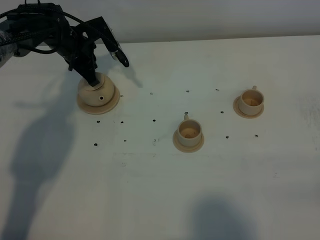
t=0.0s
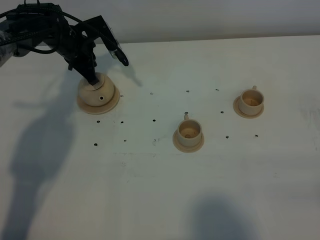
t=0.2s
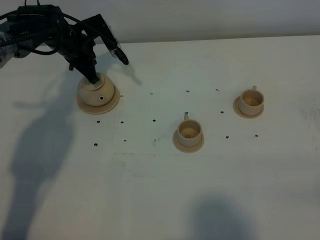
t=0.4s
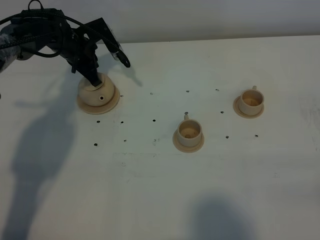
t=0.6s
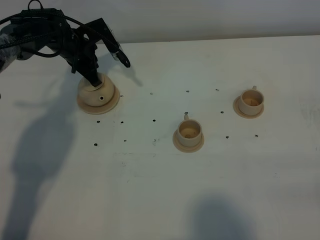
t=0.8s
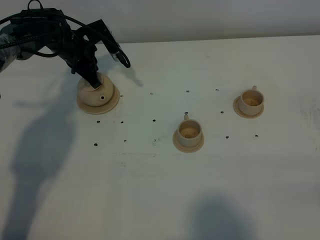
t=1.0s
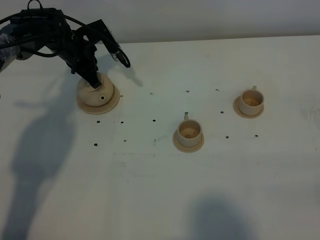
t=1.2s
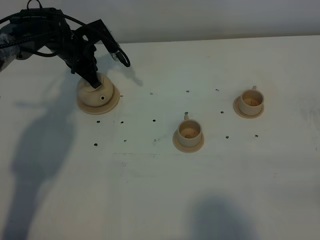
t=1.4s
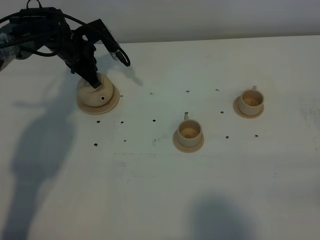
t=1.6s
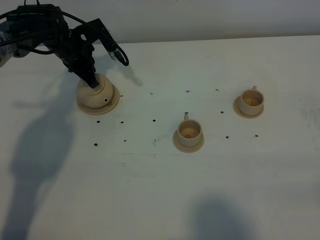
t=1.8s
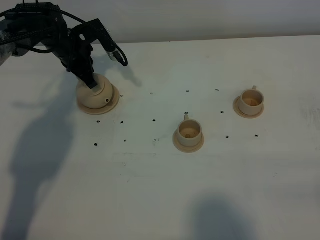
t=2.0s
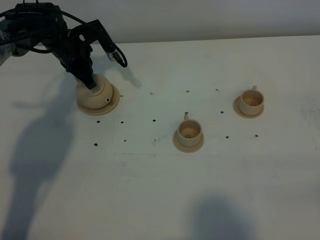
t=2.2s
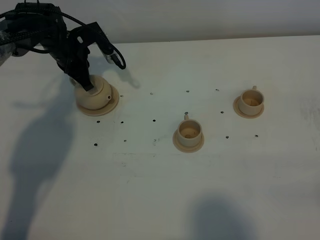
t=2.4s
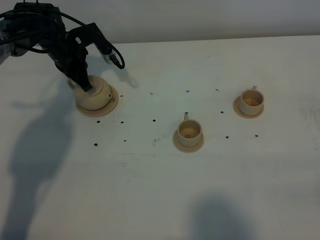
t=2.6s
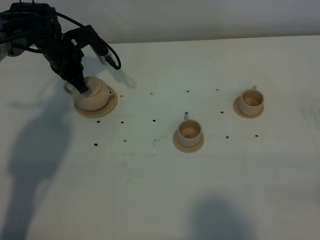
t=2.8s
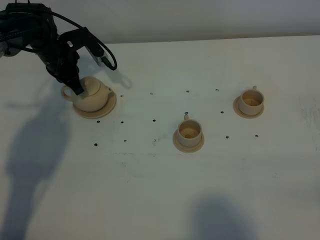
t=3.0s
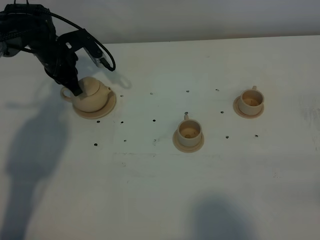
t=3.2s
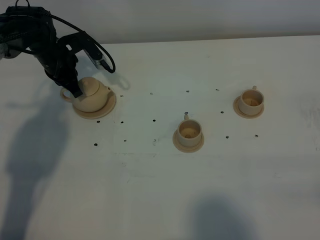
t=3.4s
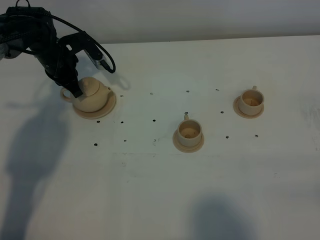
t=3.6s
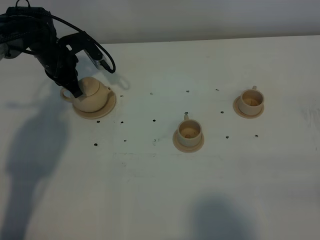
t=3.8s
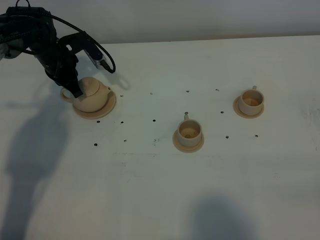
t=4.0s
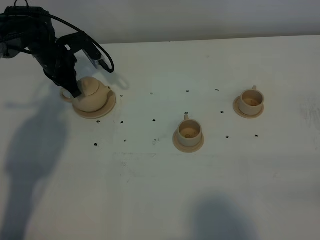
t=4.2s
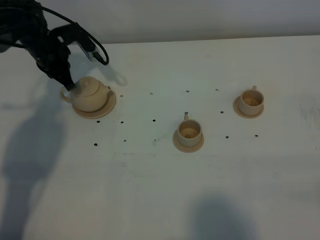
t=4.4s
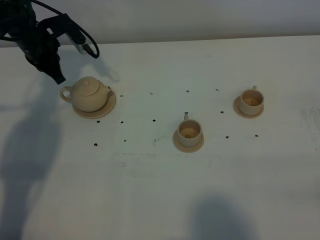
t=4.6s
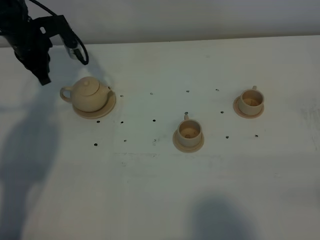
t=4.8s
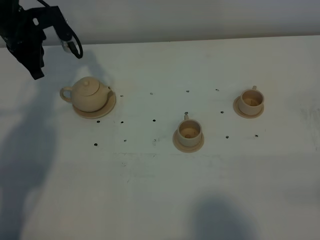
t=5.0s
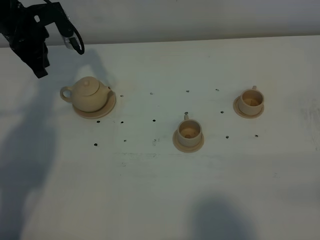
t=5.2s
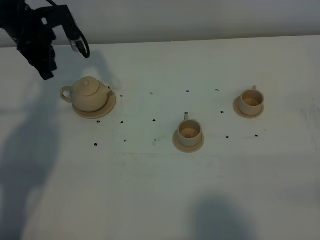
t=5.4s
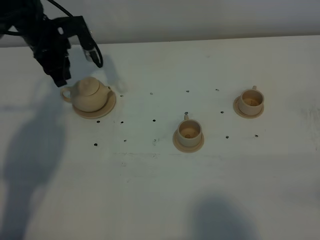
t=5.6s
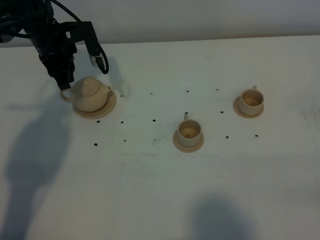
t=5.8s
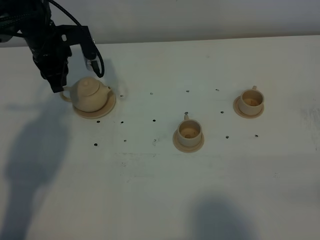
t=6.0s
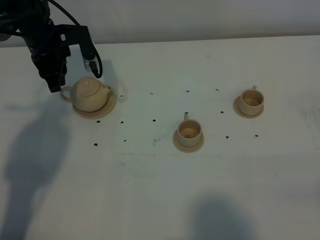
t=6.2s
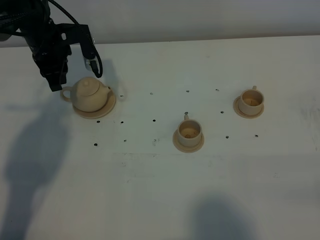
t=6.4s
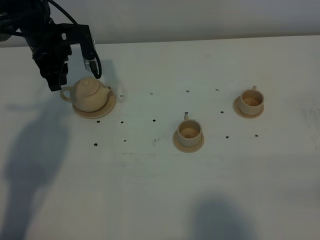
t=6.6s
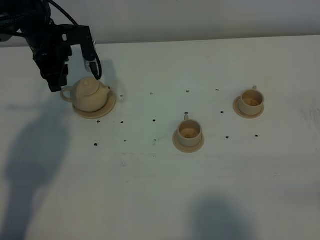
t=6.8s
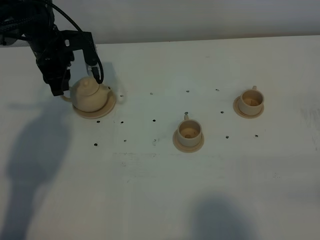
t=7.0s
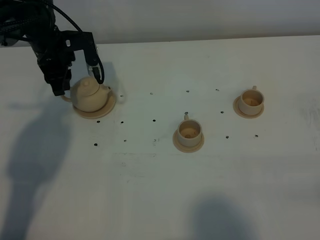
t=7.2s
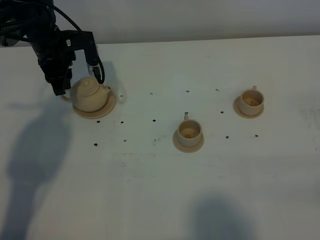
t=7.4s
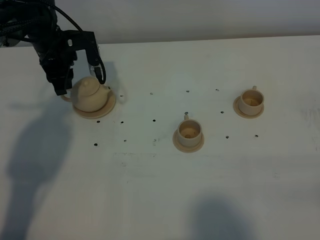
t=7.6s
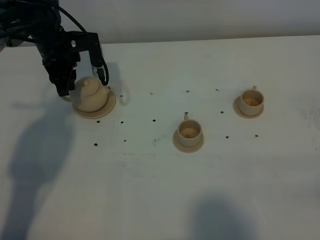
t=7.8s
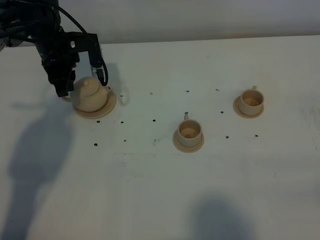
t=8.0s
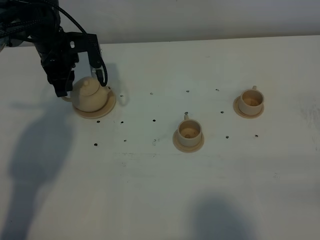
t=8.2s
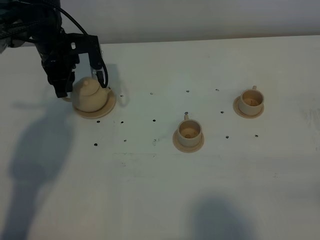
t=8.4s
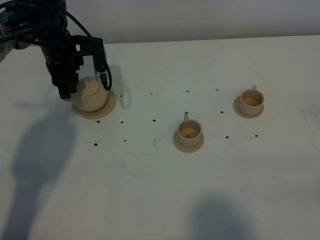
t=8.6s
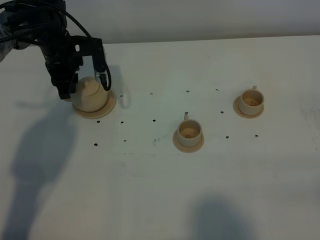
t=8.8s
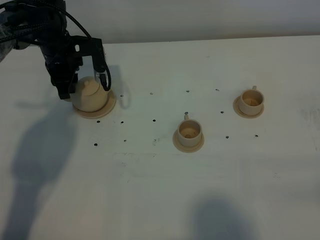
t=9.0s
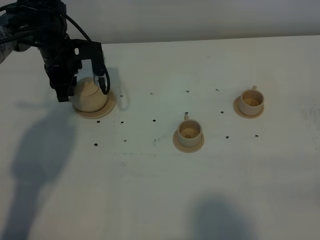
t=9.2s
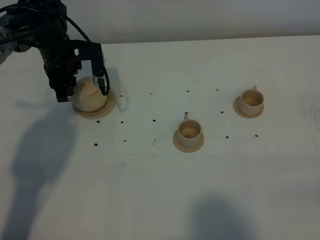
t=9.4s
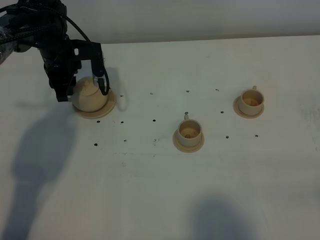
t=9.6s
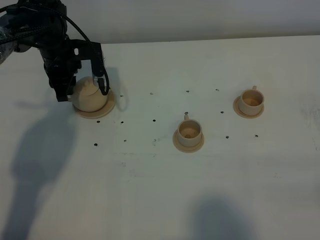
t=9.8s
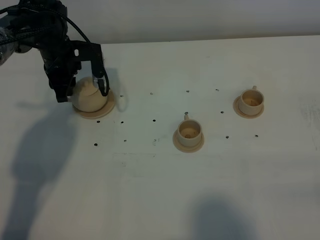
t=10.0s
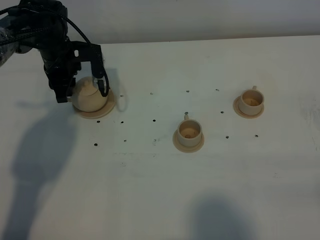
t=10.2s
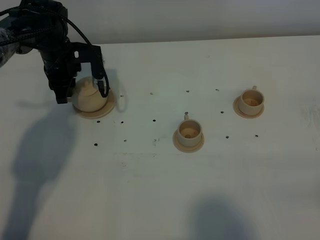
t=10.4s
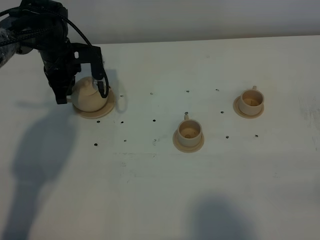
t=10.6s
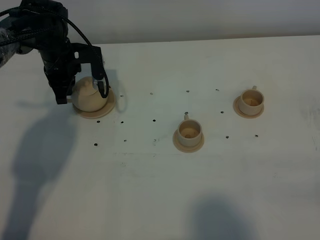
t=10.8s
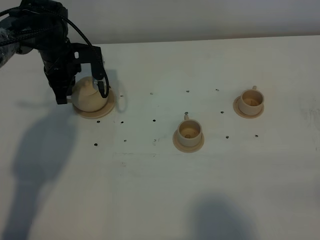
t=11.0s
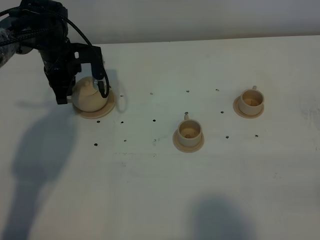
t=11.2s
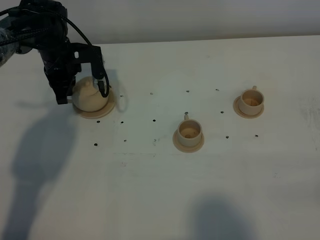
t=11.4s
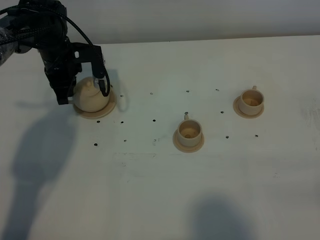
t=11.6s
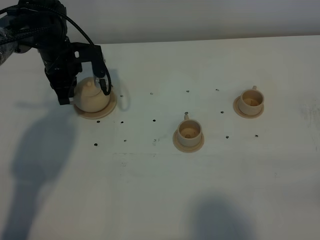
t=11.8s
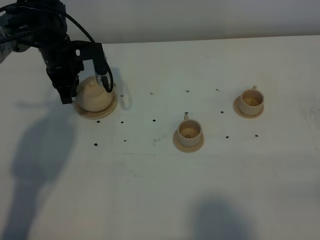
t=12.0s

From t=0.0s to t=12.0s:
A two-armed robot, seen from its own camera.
Task of the whole recording: grasp the brown teapot and pour the tea into the two brown teacups one by one, put the brown teapot back in its original place.
From t=0.0s to t=1.6s: The two grippers keep their place.
From t=1.6s to t=4.4s: The grippers stay close to where they were, moving slightly.
From t=4.4s to t=6.0s: The left gripper opens up.
From t=6.0s to t=7.6s: The grippers make only small movements.
From t=7.6s to t=9.0s: Both grippers stay put.
From t=9.0s to t=12.0s: The grippers make only small movements.

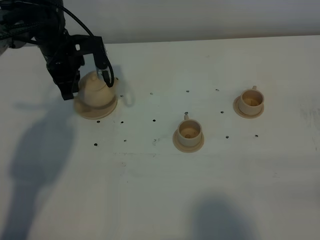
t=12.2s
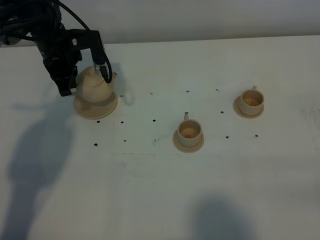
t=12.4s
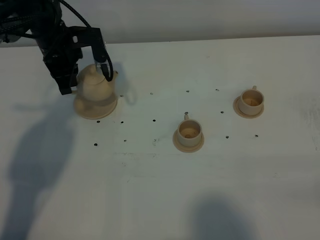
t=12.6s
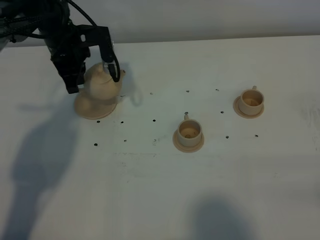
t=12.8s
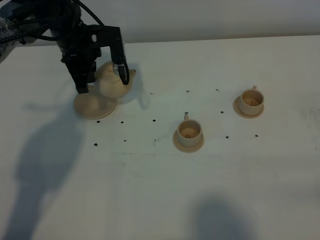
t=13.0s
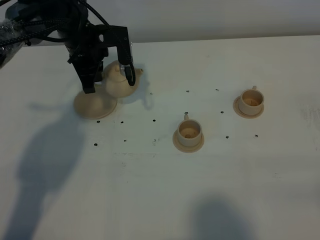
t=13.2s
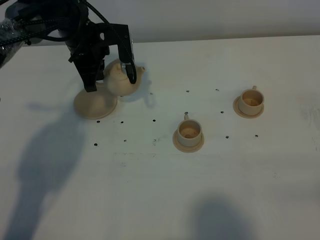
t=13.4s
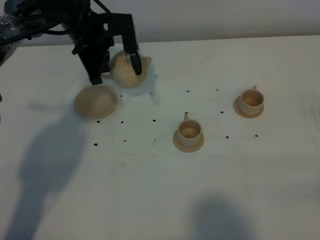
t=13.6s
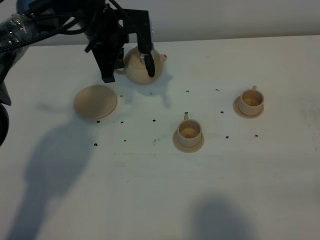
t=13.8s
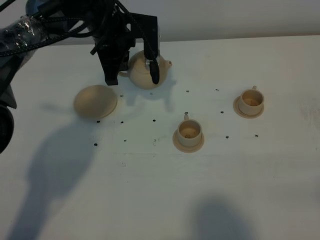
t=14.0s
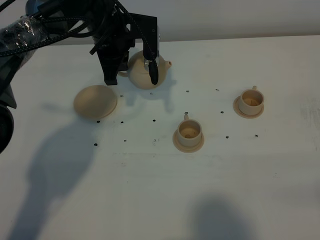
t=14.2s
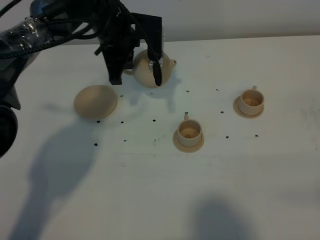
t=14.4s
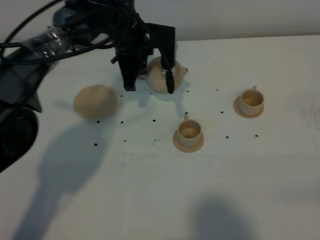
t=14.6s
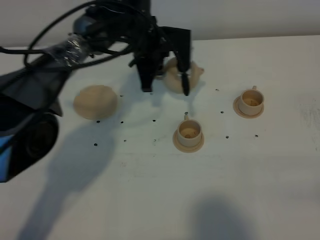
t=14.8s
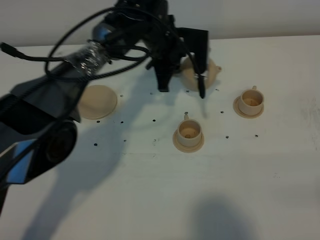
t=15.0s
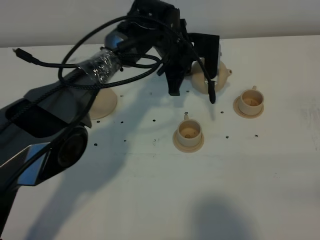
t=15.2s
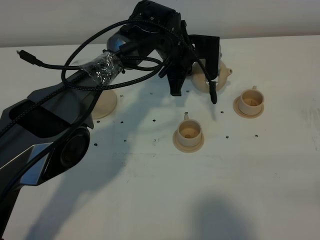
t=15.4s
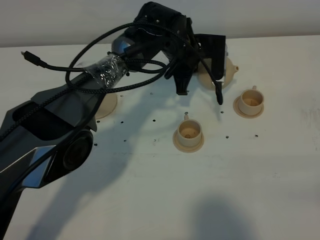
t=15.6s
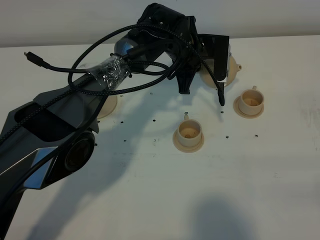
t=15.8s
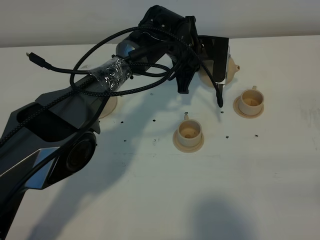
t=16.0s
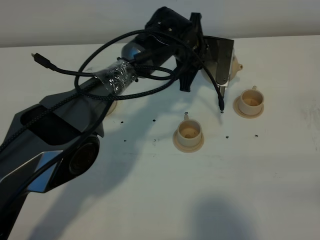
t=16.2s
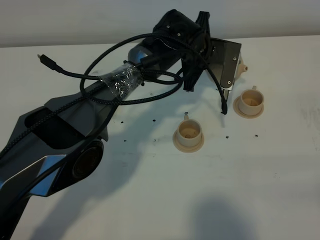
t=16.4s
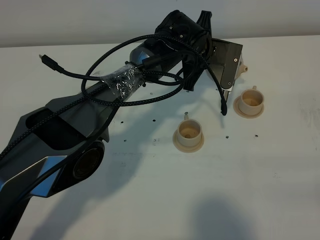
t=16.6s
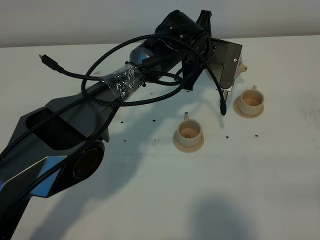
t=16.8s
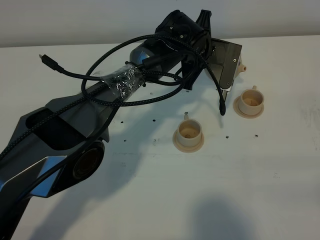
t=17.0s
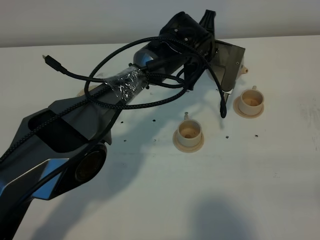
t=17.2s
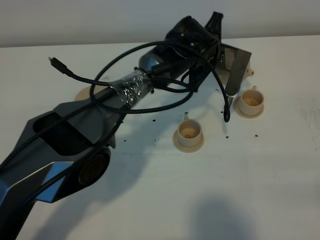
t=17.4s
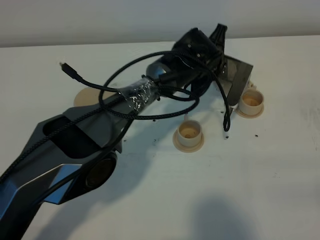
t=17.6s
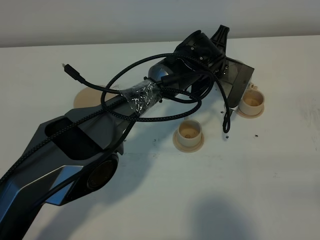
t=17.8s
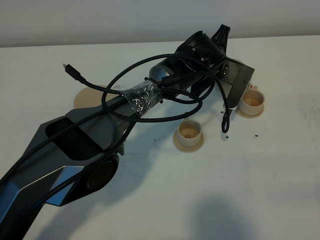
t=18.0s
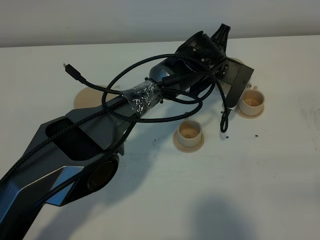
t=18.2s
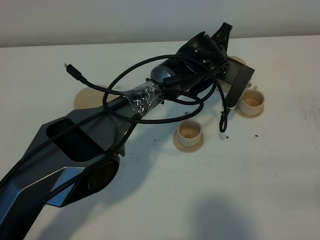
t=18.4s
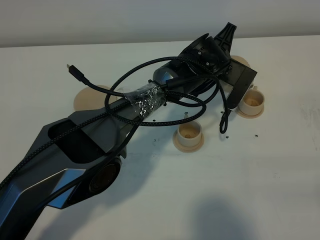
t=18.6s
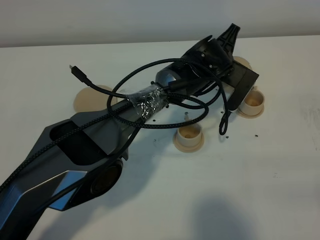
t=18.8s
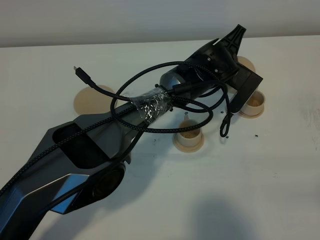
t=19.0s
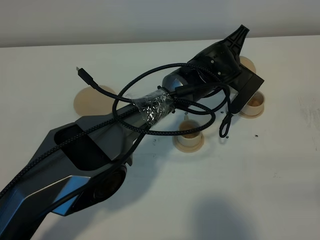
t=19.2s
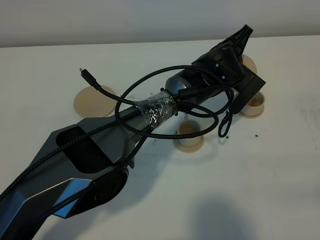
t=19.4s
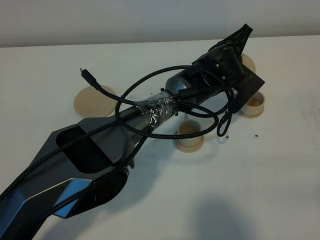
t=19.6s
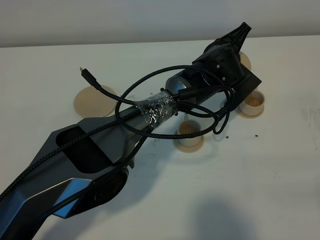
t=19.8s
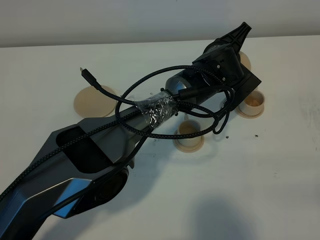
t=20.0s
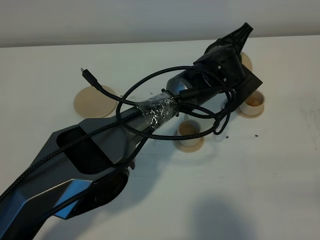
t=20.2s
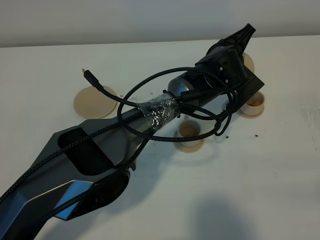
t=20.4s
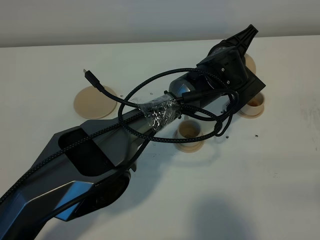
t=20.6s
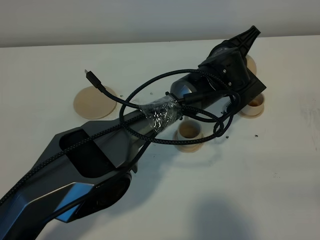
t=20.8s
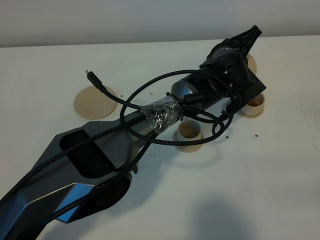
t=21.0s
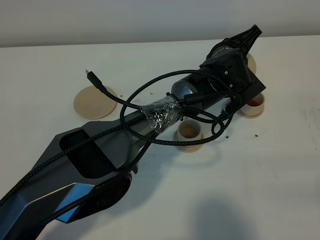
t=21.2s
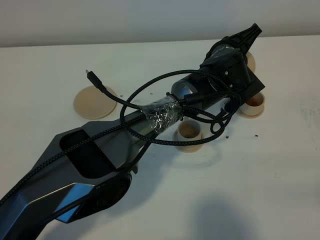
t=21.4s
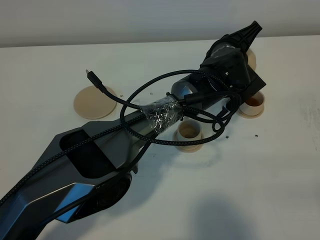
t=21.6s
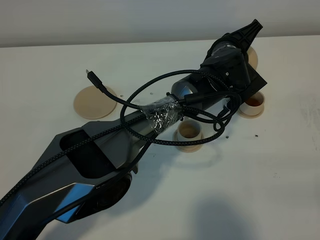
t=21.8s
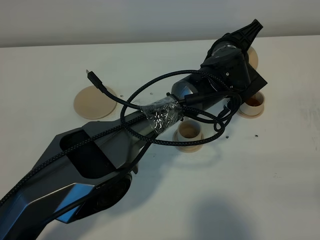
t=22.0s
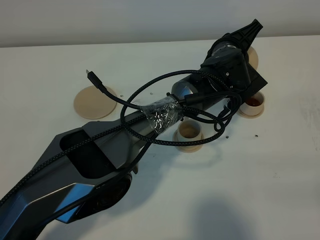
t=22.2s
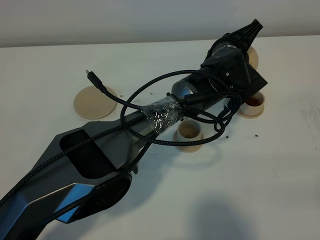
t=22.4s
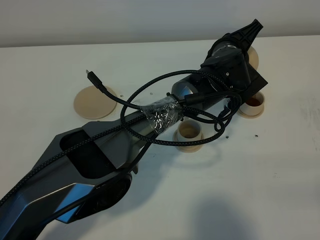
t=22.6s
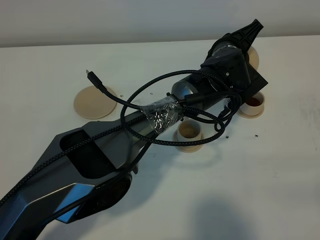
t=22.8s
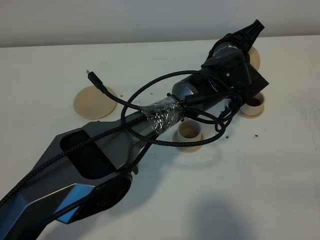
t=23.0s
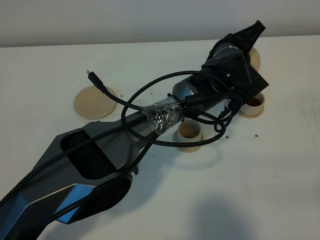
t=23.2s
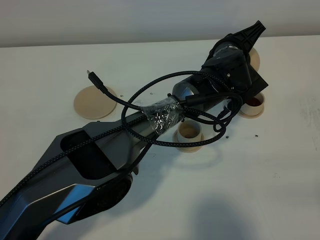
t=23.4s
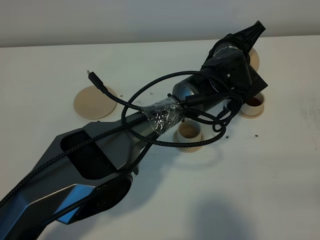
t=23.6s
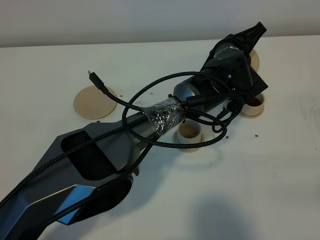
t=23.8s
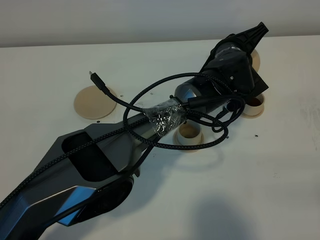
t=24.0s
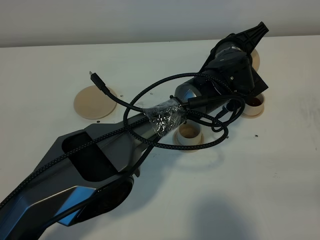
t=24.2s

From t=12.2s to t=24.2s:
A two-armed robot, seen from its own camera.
Task of the whole recording: grasp the brown teapot and pour the tea into the two brown teacups one by one, put the brown teapot back in its original place.
From t=12.2s to t=13.8s: The left gripper heads to the right and upward, covering approximately 10 cm.
From t=13.8s to t=15.2s: The left gripper goes approximately 15 cm to the right and downward.
From t=19.8s to t=21.2s: There are only small adjustments of the grippers.
From t=21.2s to t=22.6s: Neither gripper changes place.
From t=22.6s to t=24.2s: The grippers make only small movements.
